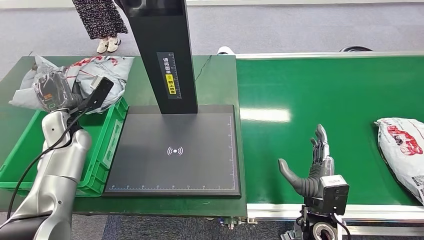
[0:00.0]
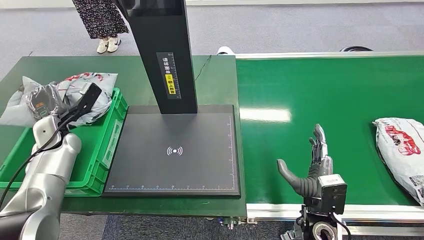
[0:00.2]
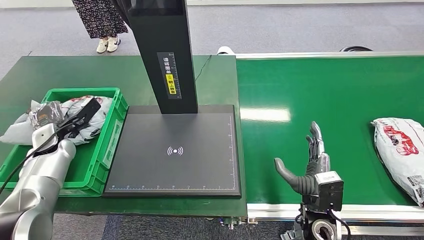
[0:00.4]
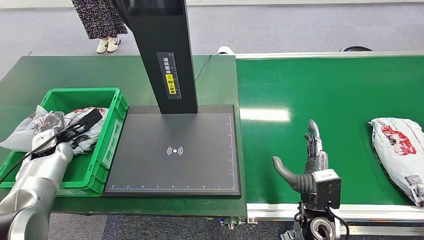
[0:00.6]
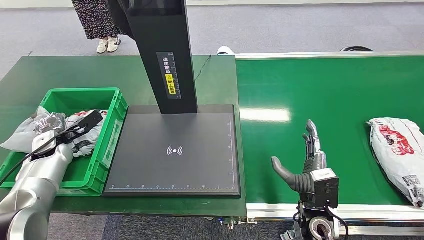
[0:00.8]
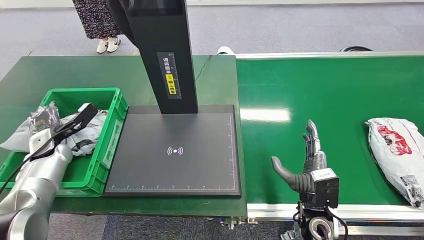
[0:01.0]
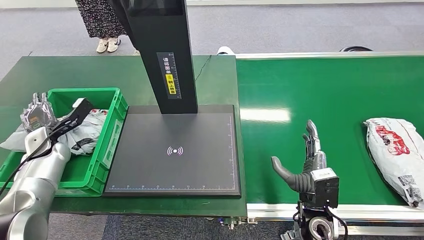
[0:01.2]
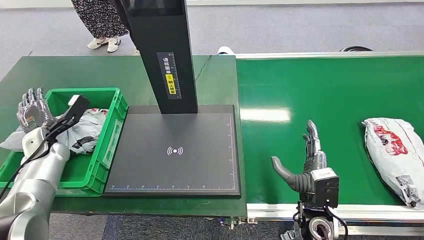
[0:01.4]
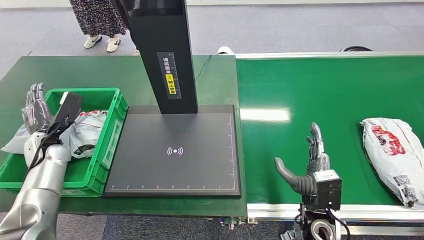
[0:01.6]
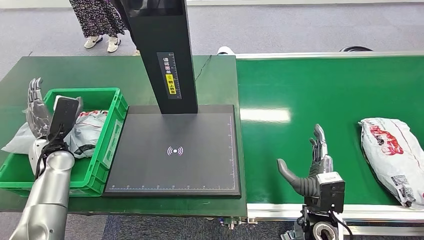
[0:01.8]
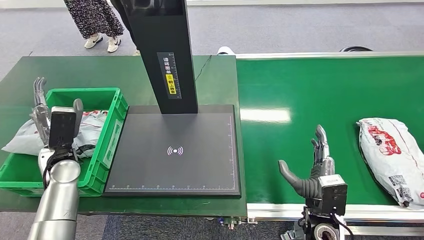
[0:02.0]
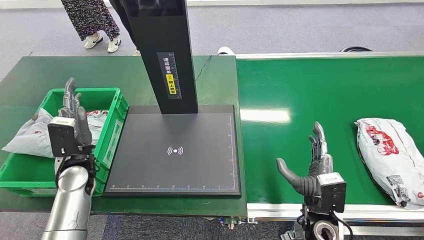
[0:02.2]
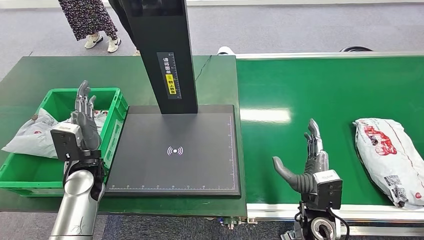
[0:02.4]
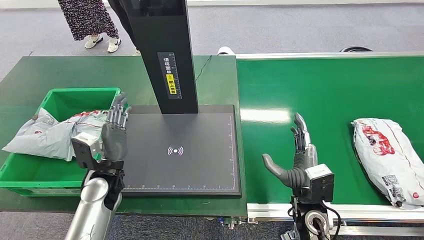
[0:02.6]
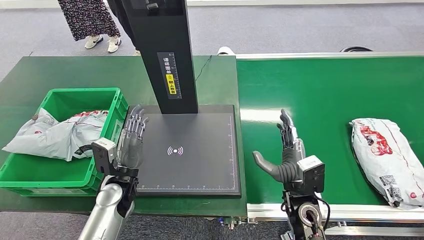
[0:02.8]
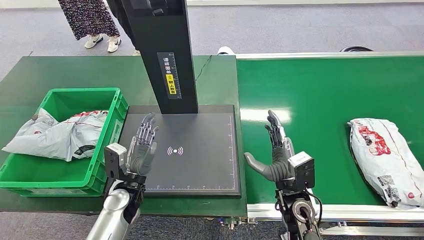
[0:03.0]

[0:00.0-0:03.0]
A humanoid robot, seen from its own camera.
Step, 0:00.0 to 0:03.0: Place the package into the parcel locker.
